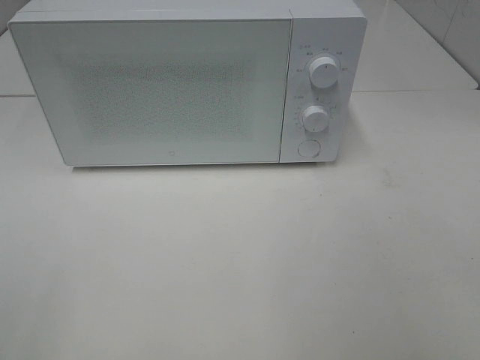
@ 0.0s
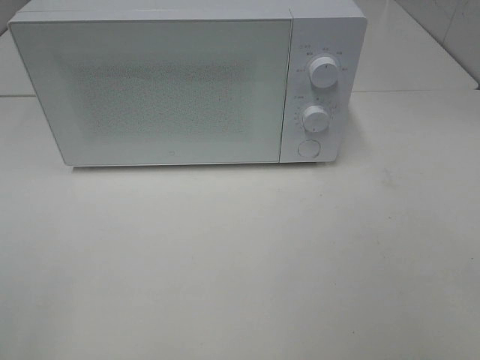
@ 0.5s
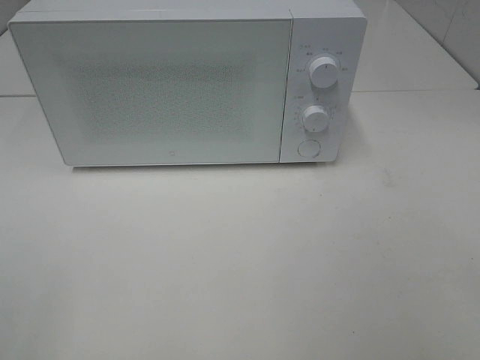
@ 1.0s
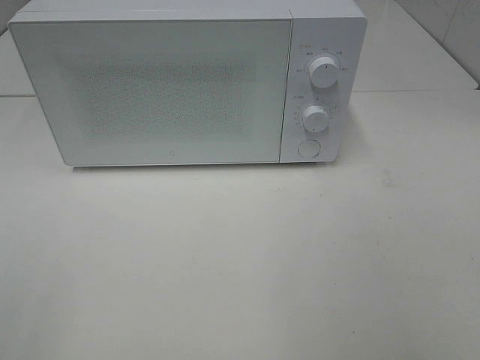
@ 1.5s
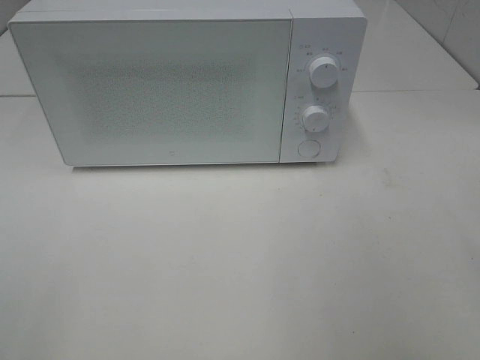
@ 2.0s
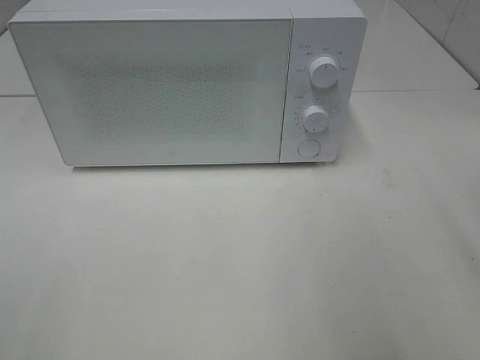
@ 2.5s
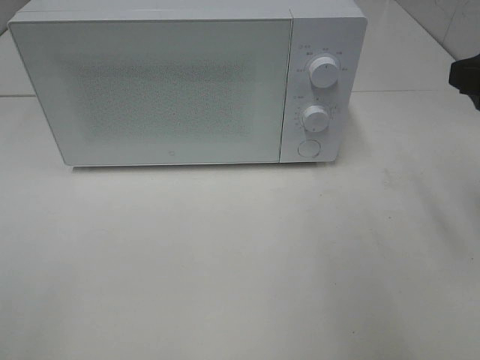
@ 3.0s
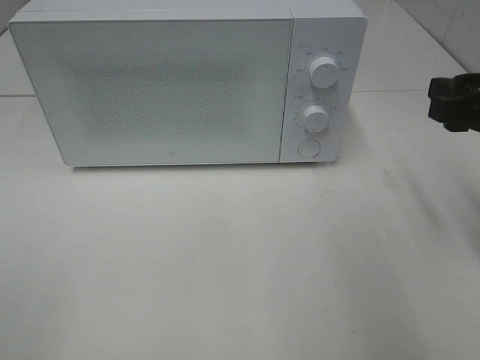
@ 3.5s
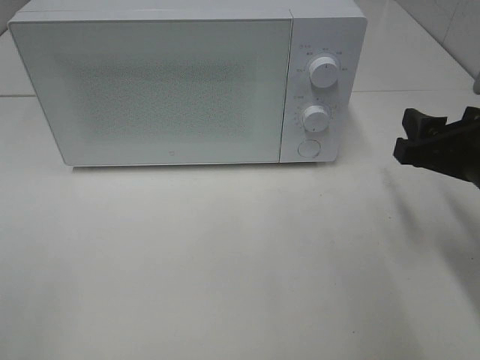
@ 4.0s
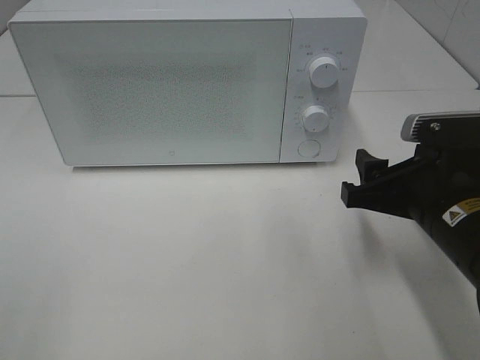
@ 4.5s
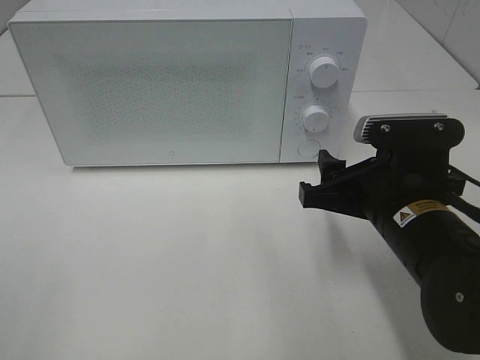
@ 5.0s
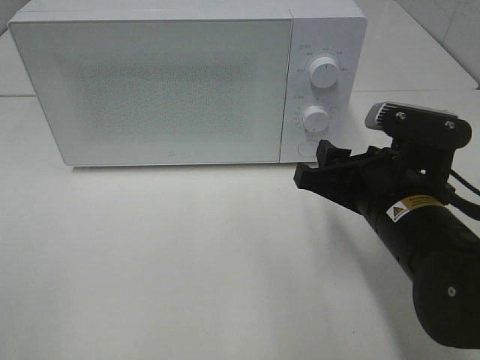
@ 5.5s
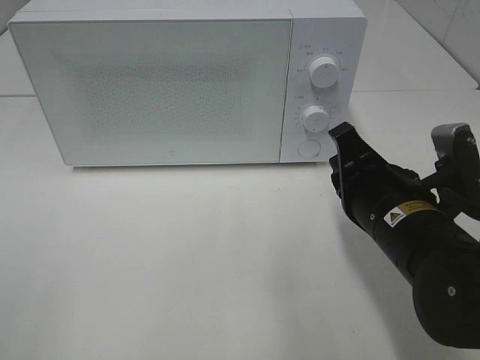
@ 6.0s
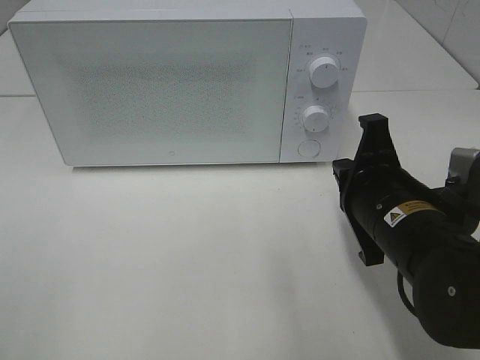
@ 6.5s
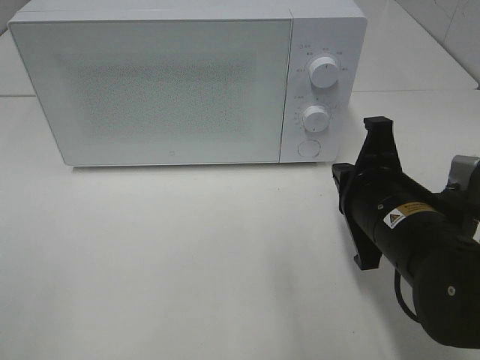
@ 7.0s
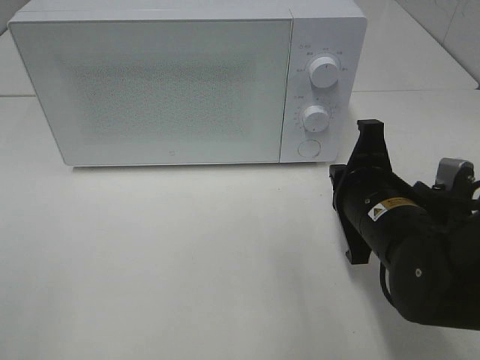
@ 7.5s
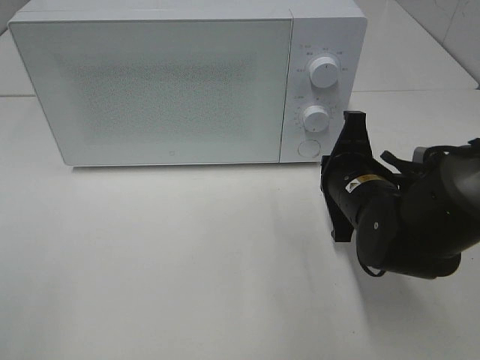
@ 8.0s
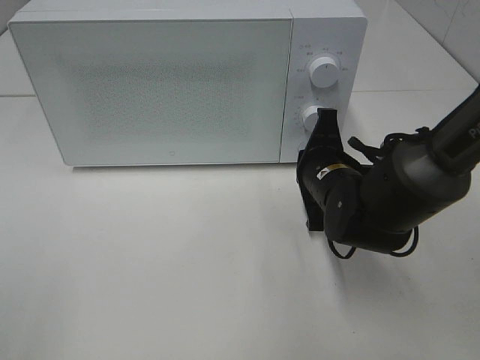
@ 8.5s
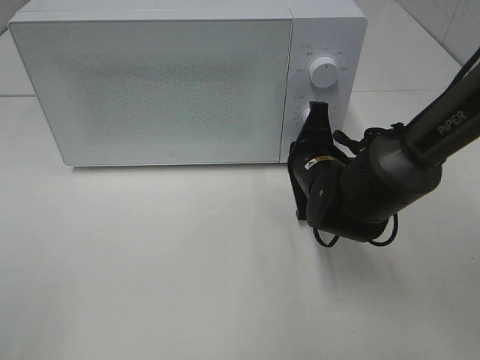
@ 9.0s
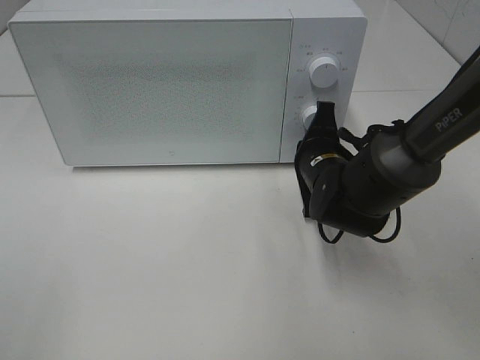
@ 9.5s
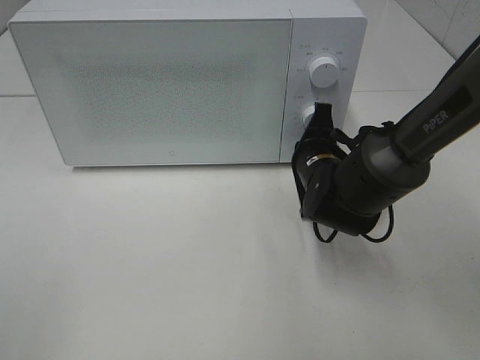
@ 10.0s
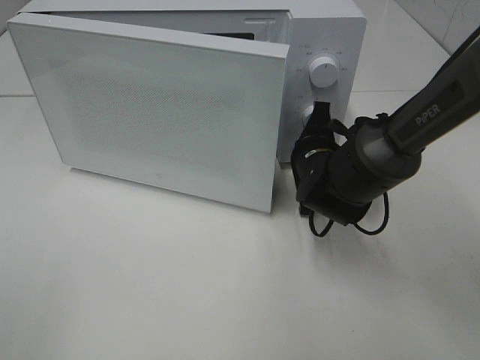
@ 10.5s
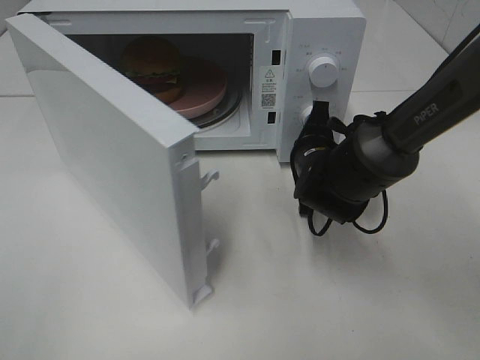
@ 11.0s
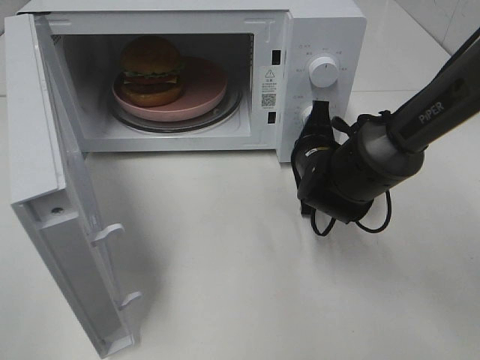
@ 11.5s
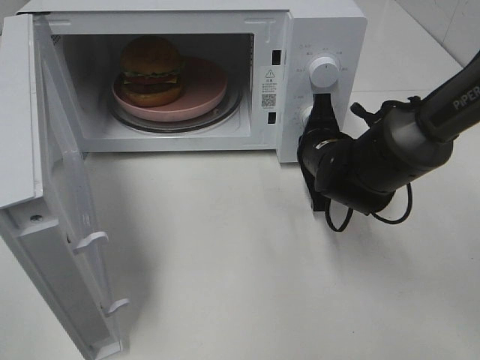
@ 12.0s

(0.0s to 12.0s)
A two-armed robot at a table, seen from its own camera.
Task of the whole recording: Heat the burger.
2.0s - 4.0s: The right gripper travels downward and forward by approximately 20 cm.
4.0s - 6.0s: The right gripper moves to the left, some 10 cm, and closes its fingers.
6.0s - 8.0s: The right gripper shifts roughly 5 cm forward.
8.0s - 10.0s: The right gripper is displaced forward by some 5 cm.

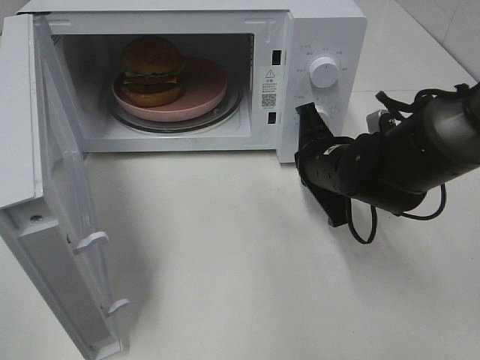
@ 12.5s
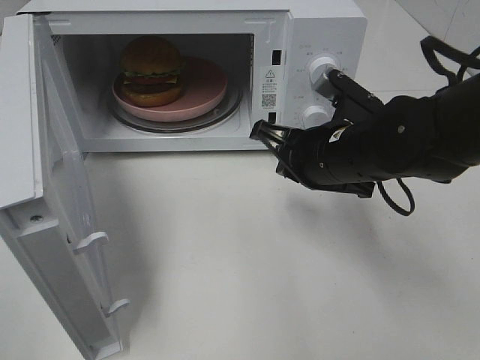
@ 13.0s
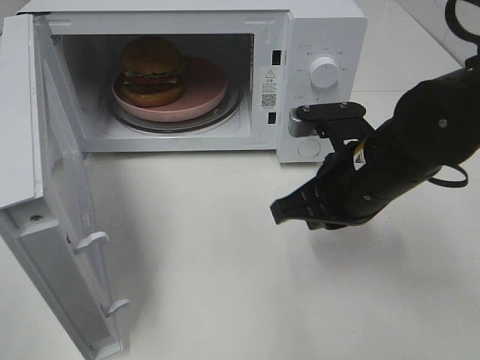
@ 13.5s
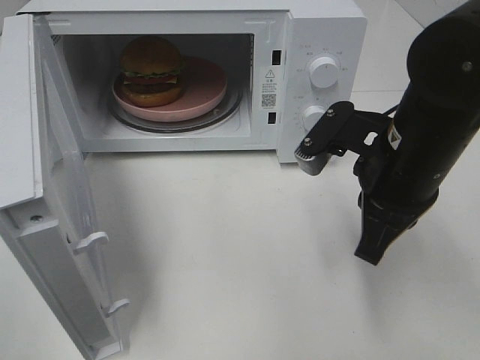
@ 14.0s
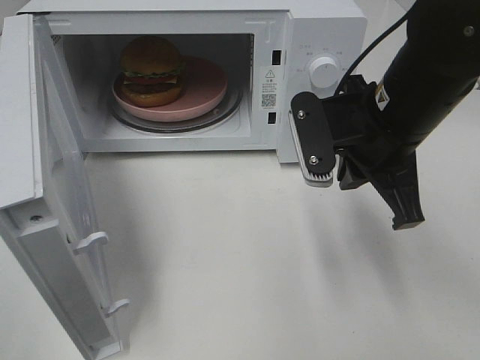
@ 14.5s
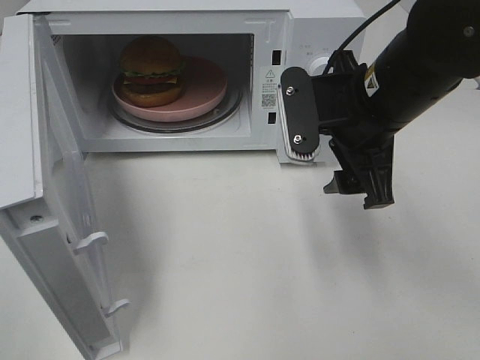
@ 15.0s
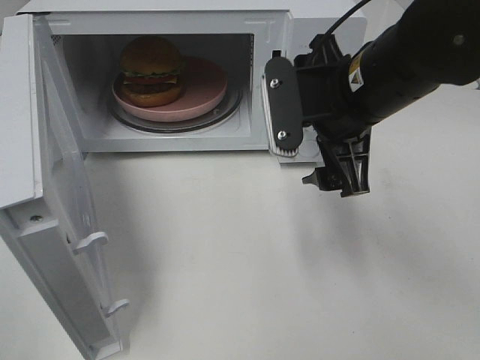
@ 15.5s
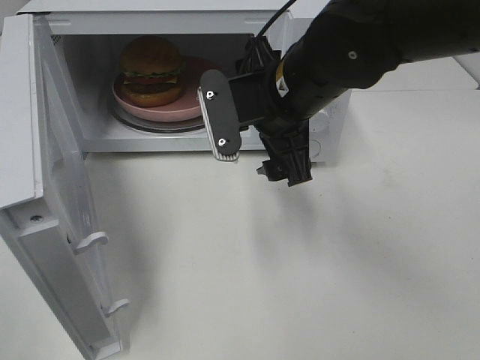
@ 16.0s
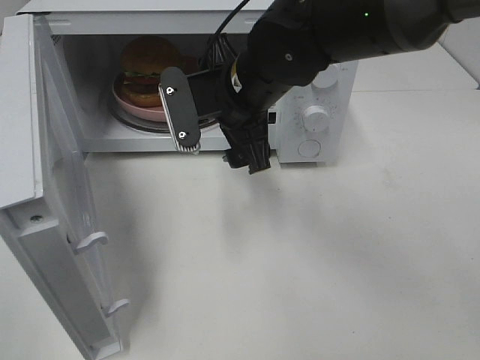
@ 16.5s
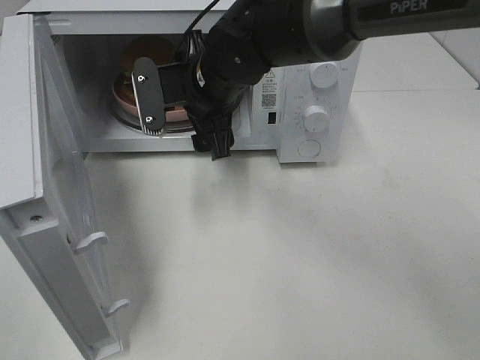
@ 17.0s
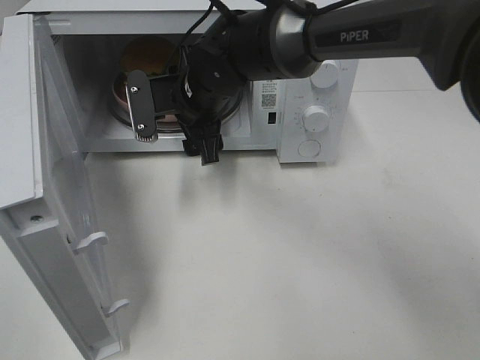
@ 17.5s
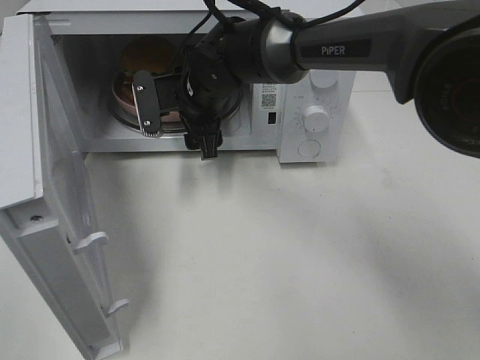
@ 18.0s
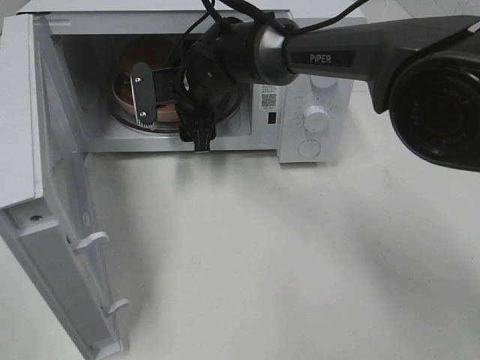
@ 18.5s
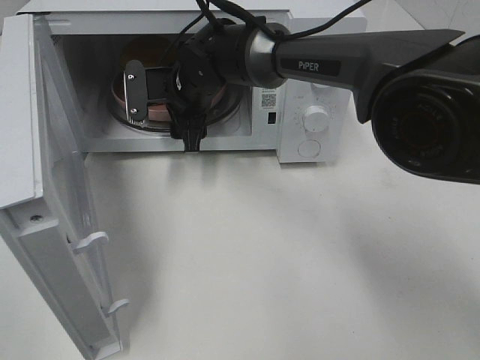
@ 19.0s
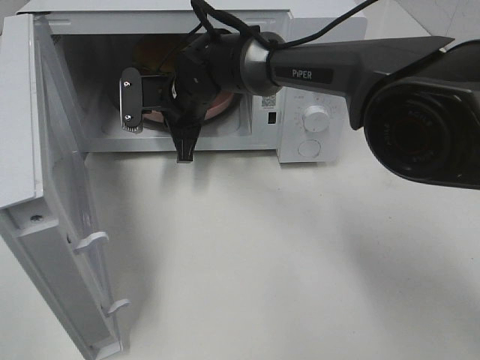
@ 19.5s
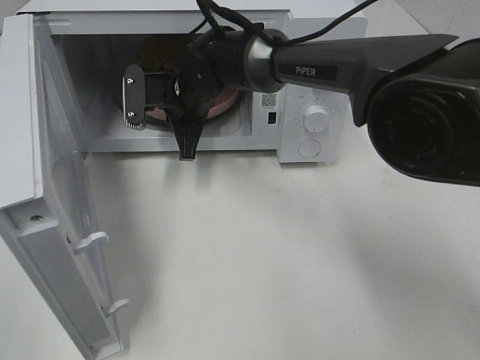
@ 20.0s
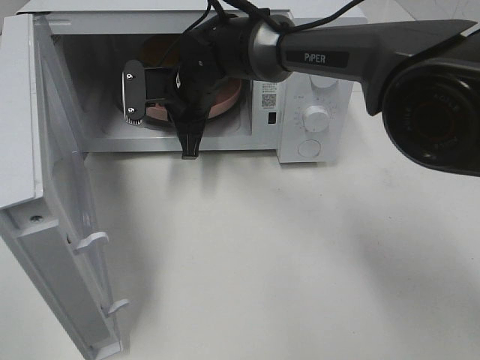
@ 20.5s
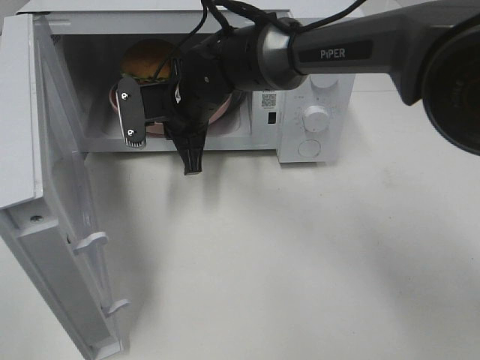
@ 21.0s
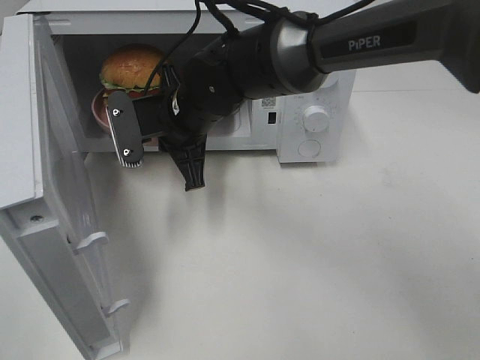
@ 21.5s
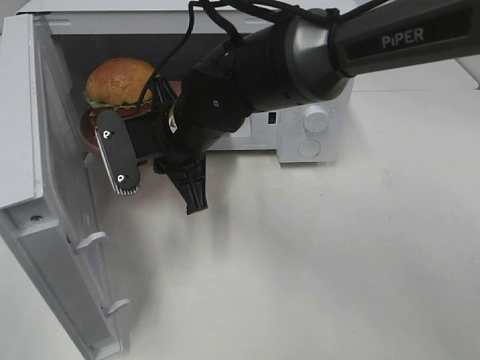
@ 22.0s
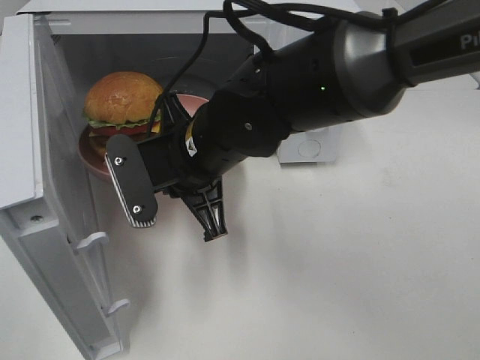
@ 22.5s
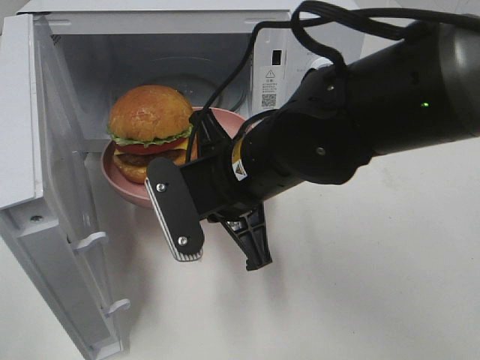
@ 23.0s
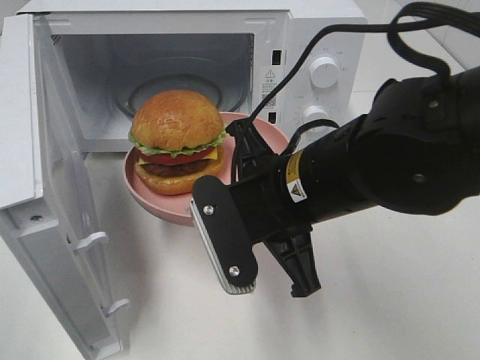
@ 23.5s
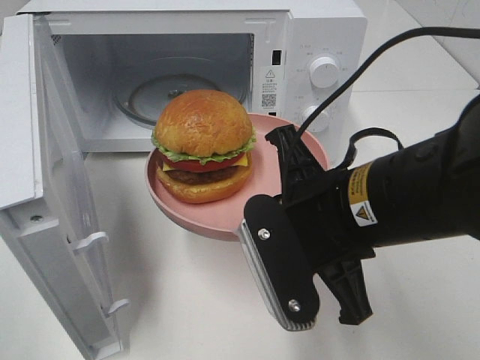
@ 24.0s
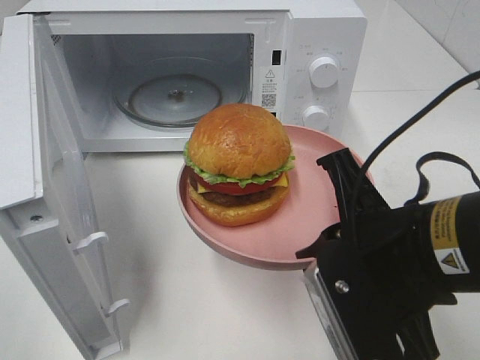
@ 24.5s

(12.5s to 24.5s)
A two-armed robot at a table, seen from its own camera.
Task of the whole recording: Heat the burger.
Step, 12.5s - 19.5s: Right hand: grab the plate with the hamburger.
12.5s - 14.5s: The right gripper moves upward and backward, approximately 15 cm.
14.5s - 16.5s: The right gripper heads to the left and forward, covering some 15 cm, and opens.
16.5s - 18.5s: The right gripper goes roughly 15 cm forward, downward and to the left.
18.5s - 20.5s: The right gripper closes its fingers.
20.5s - 22.5s: The right gripper travels backward by approximately 15 cm.
22.5s - 24.5s: The right gripper travels to the right and backward by about 20 cm.

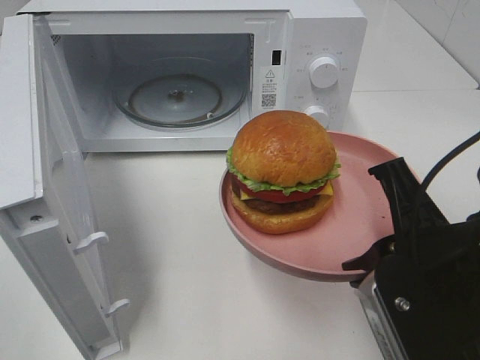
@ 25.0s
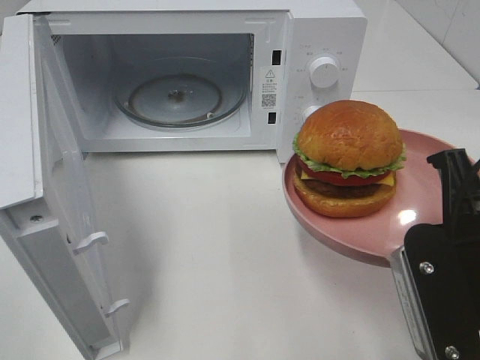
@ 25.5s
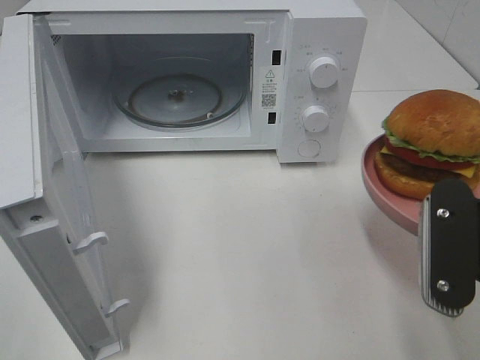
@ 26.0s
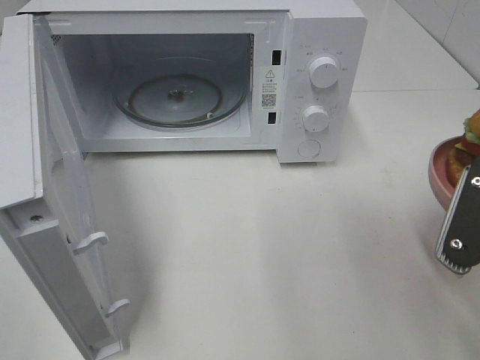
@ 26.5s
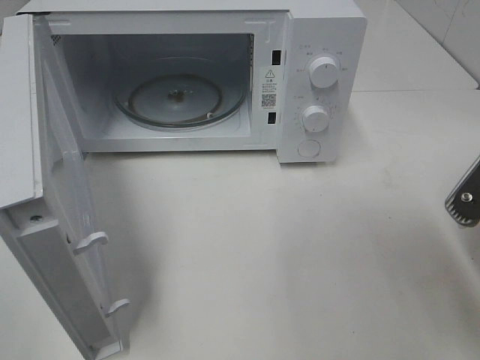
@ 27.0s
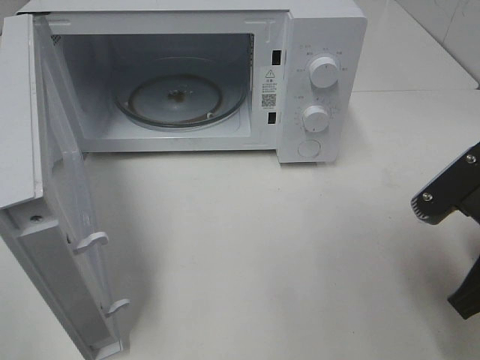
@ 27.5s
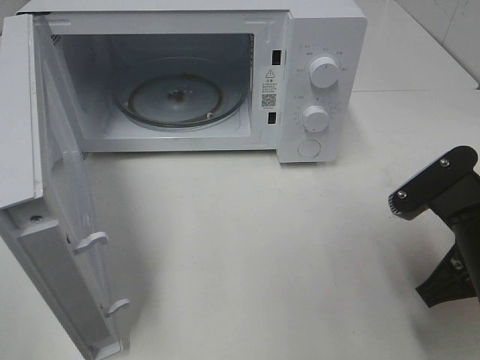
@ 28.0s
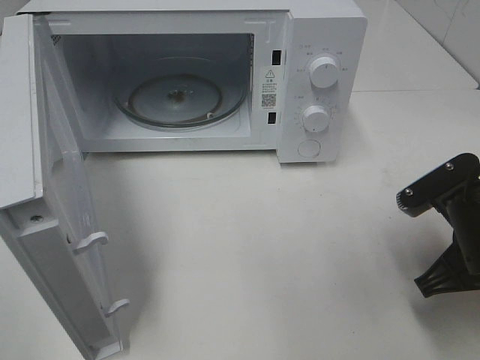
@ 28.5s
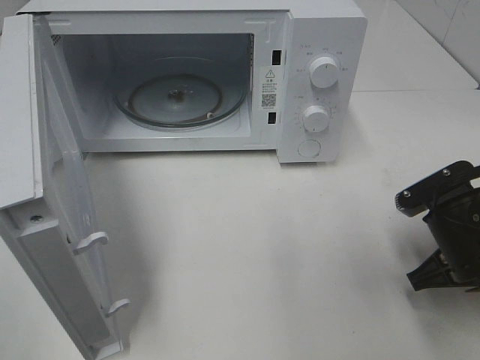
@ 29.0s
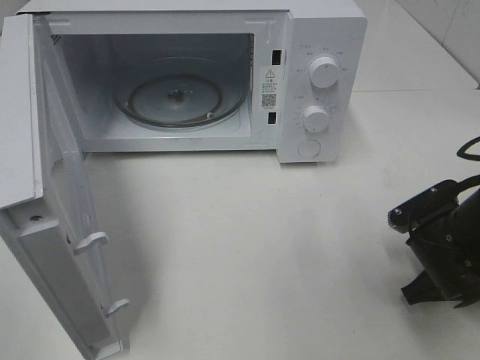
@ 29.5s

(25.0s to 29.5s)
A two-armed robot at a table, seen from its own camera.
Task of the whole recording: Heat the burger.
25.0s - 27.0s: The right gripper goes approximately 5 cm to the right.
27.0s - 29.5s: The right gripper moves downward and forward, roughly 15 cm.
